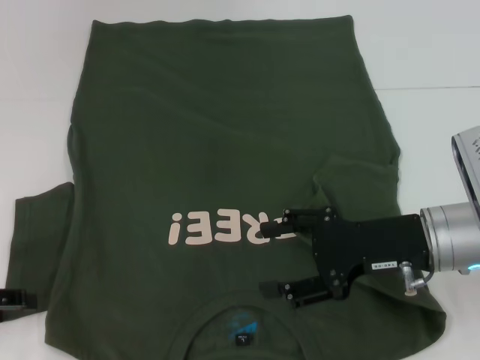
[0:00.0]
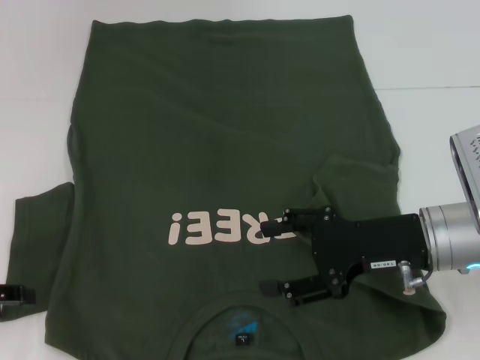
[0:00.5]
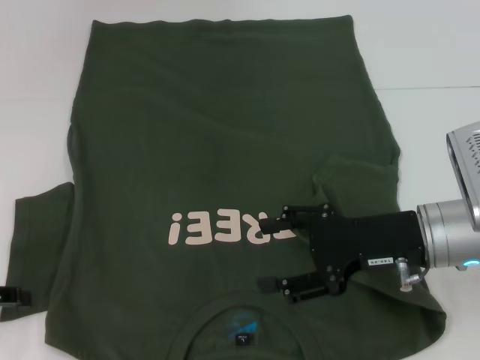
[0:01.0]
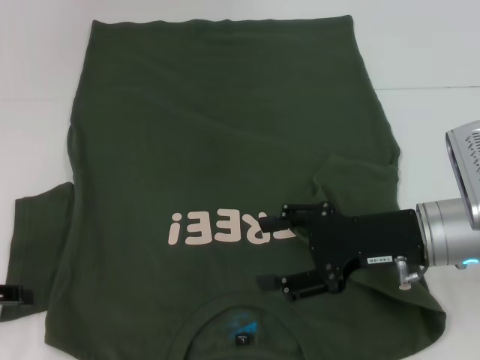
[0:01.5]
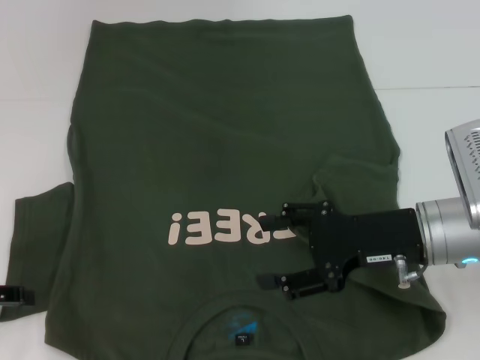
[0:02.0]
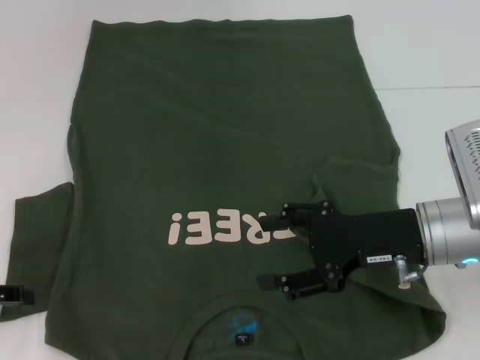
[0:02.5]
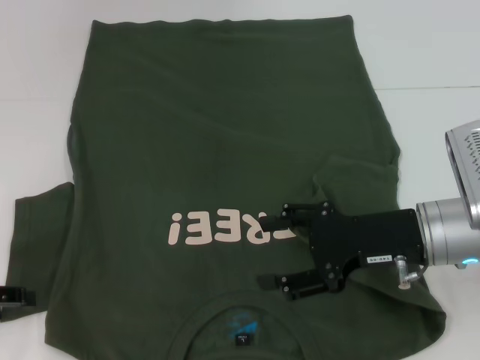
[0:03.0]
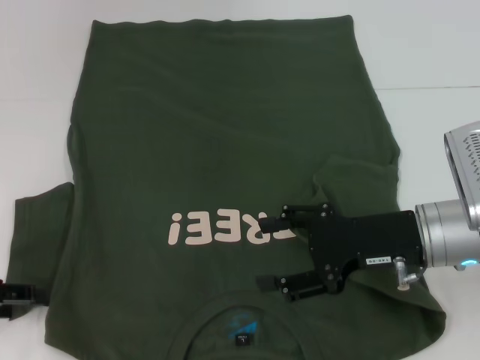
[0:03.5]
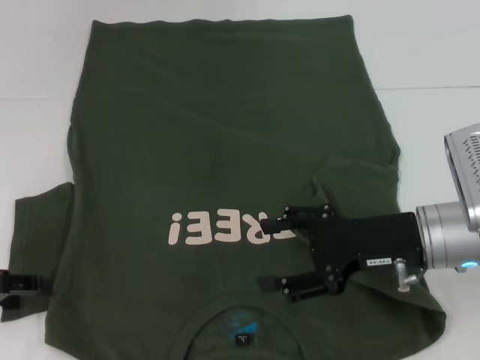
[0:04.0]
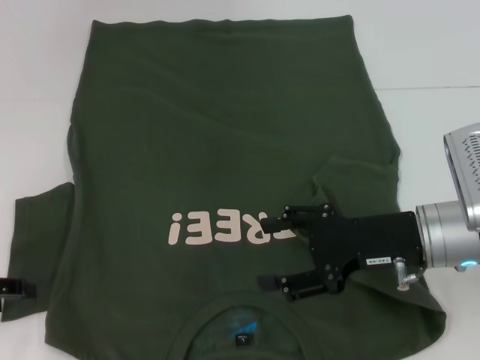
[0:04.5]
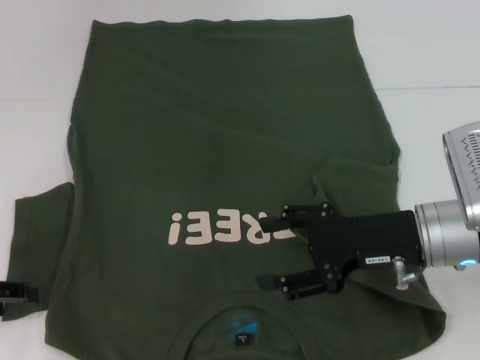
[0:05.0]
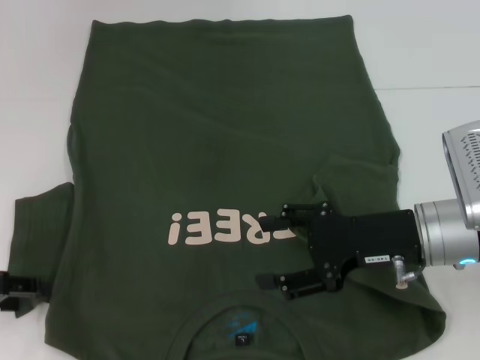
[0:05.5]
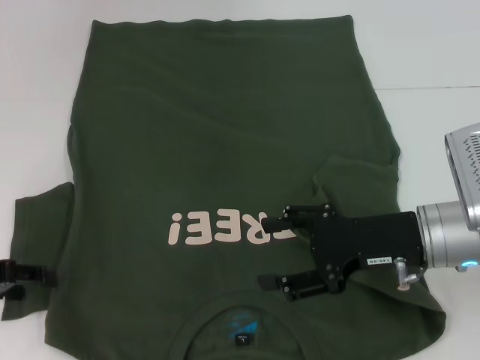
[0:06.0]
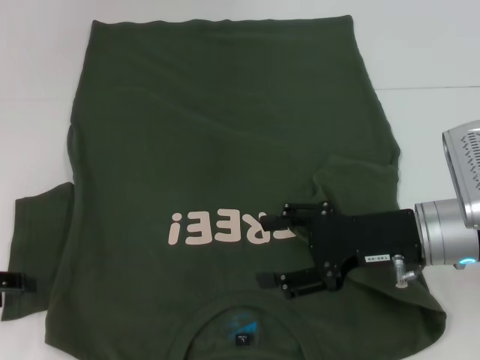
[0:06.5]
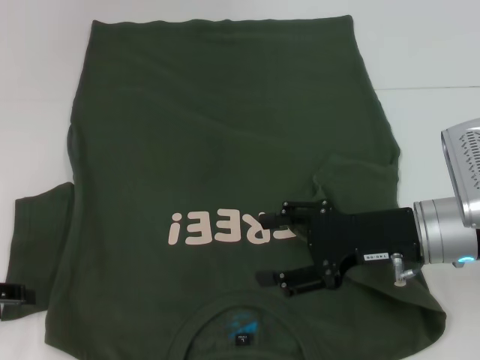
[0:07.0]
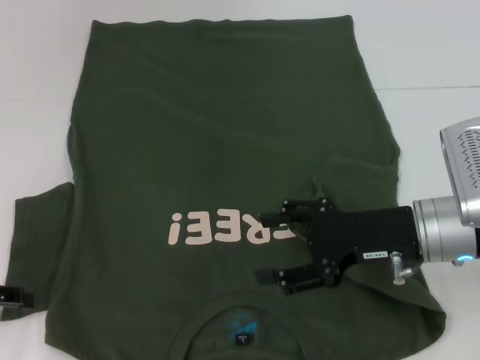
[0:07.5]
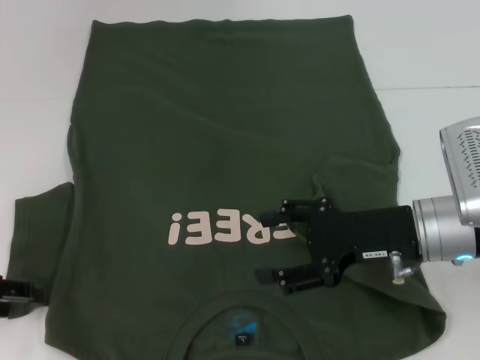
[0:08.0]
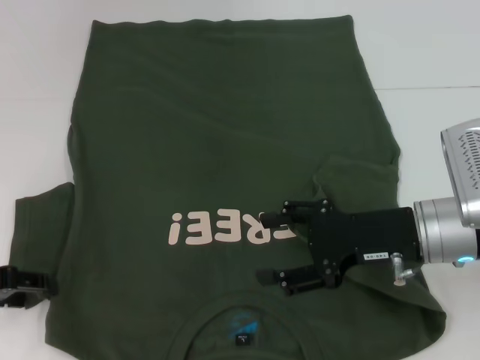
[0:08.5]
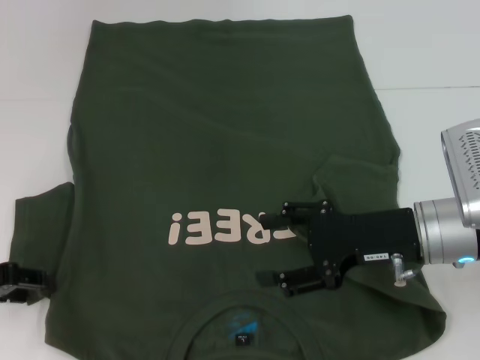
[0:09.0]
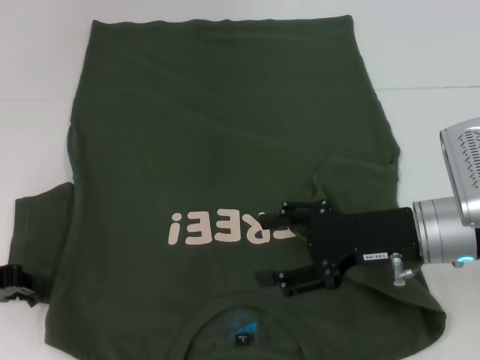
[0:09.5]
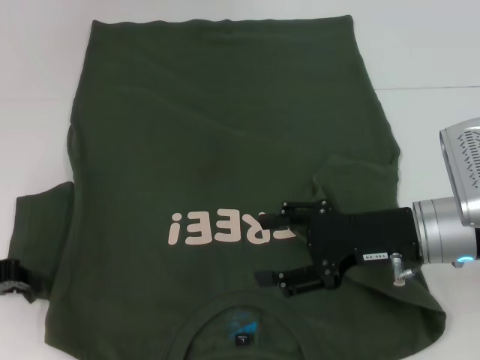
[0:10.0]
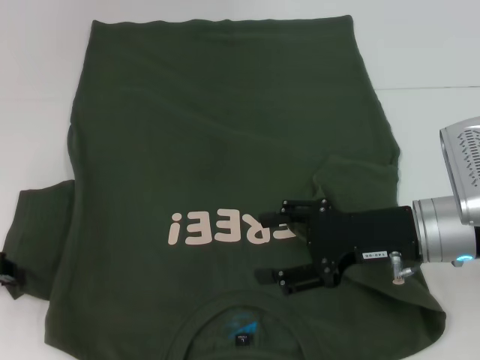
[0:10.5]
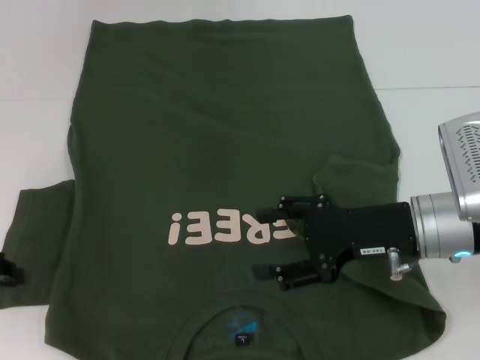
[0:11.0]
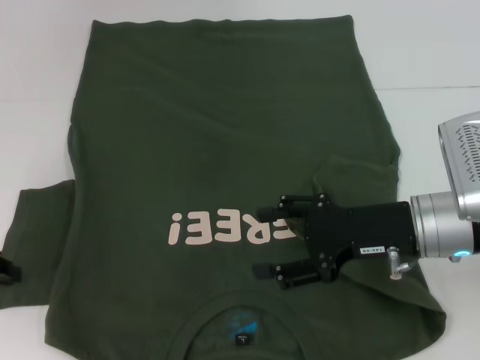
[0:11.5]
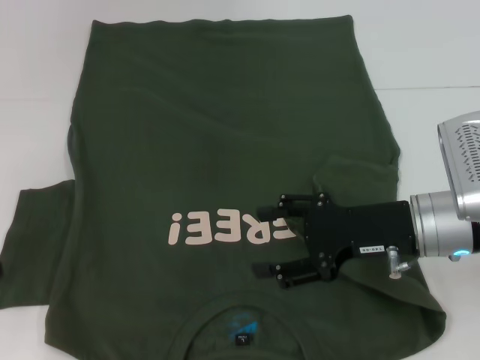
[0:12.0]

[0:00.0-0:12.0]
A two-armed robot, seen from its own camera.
0:00.0 to 0:02.0: The two grippers keep their place.
0:02.0 to 0:08.0: The grippers move only a little.
0:08.0 to 0:10.0: The left gripper closes.
0:10.0 to 0:12.0: The grippers move only a little.

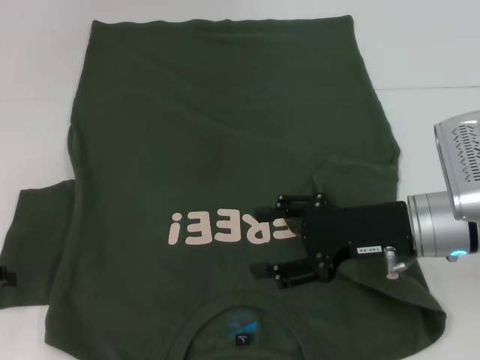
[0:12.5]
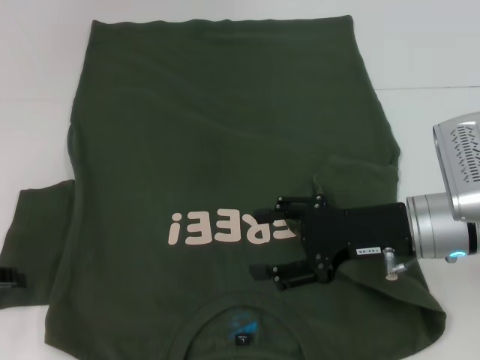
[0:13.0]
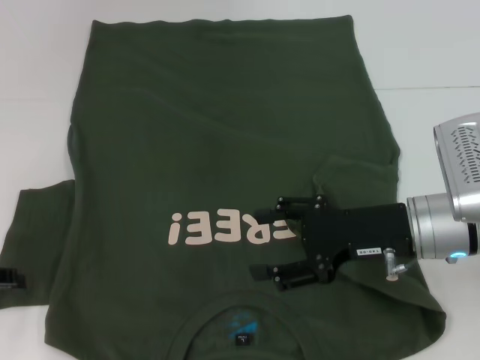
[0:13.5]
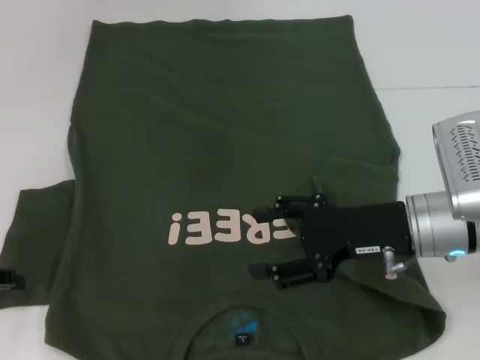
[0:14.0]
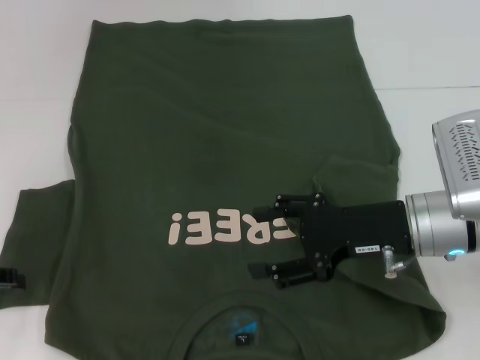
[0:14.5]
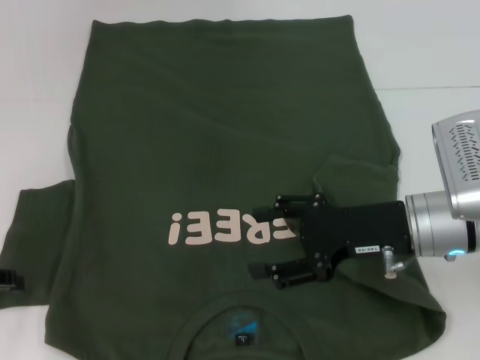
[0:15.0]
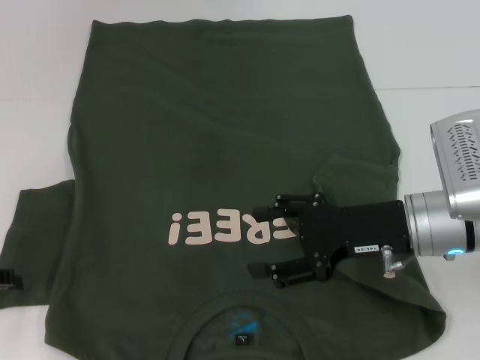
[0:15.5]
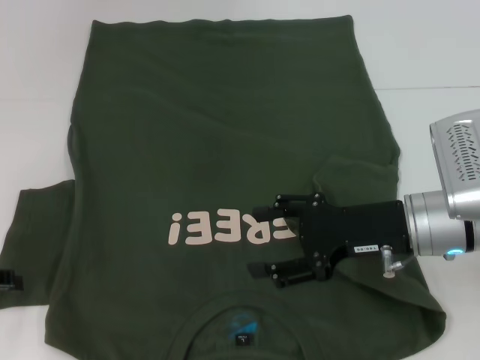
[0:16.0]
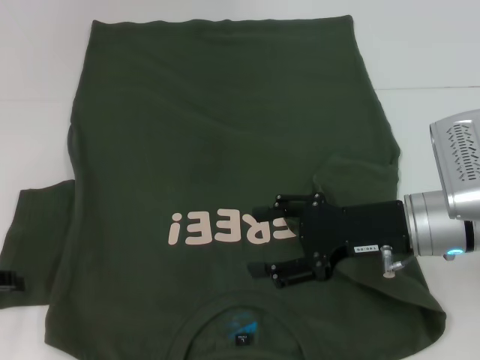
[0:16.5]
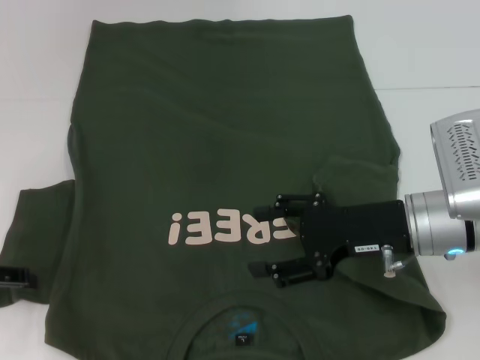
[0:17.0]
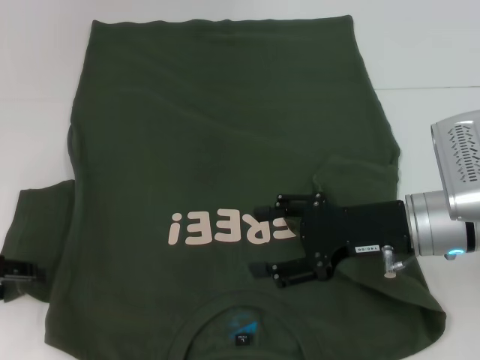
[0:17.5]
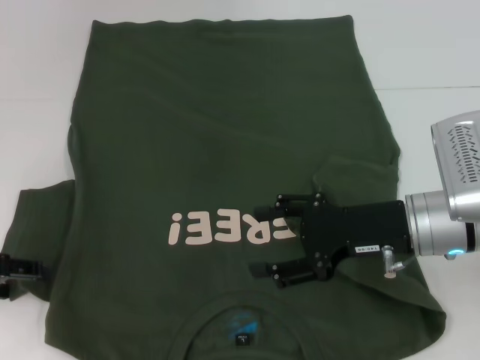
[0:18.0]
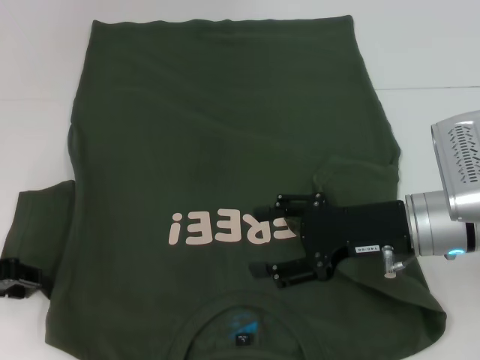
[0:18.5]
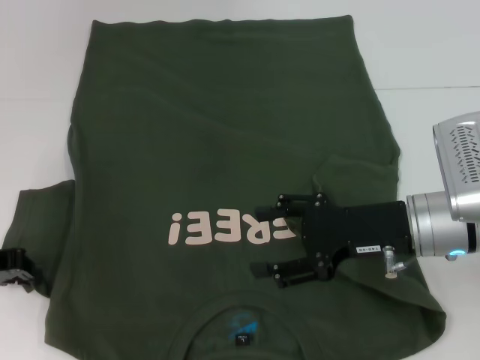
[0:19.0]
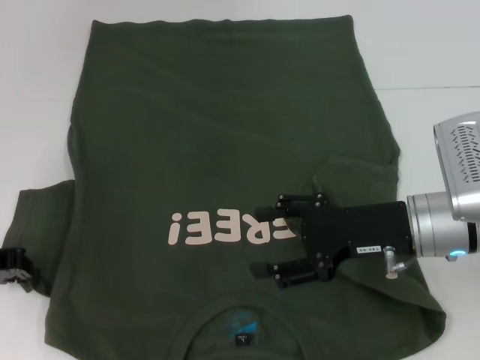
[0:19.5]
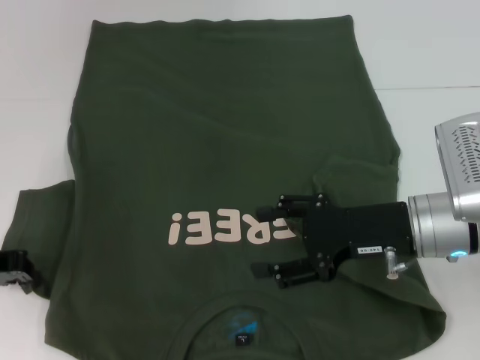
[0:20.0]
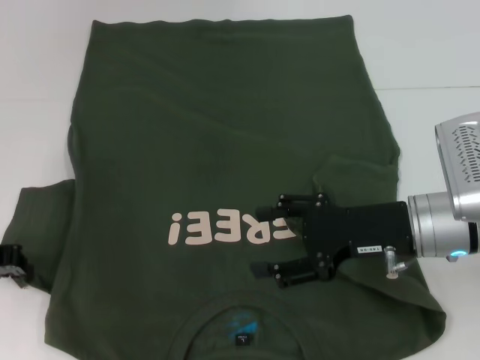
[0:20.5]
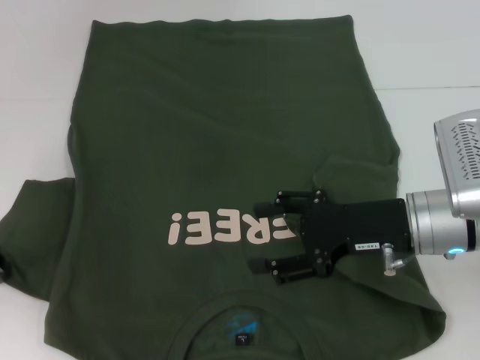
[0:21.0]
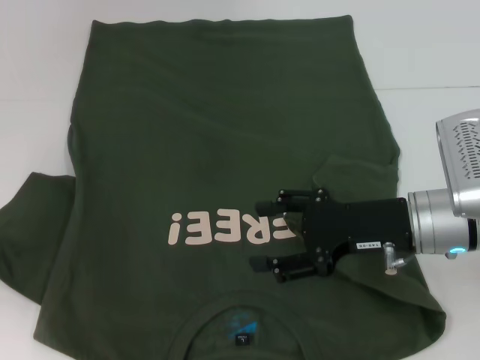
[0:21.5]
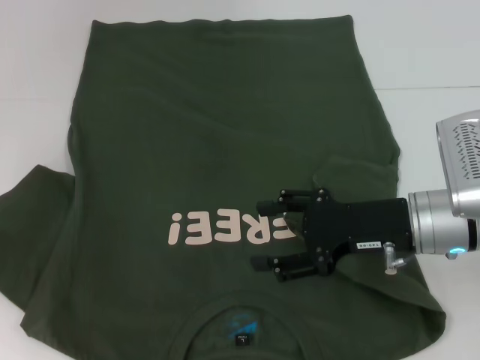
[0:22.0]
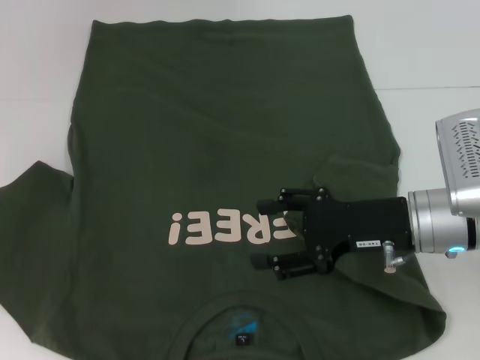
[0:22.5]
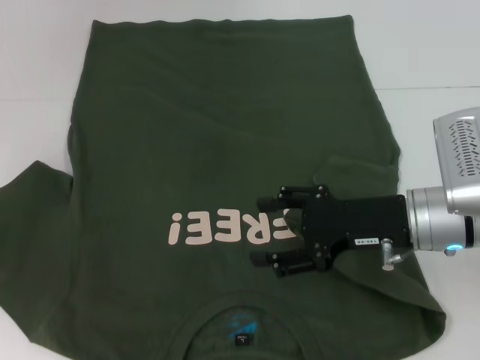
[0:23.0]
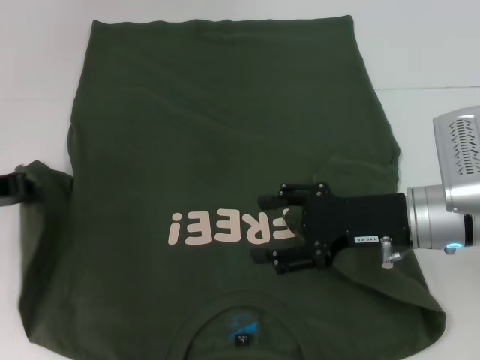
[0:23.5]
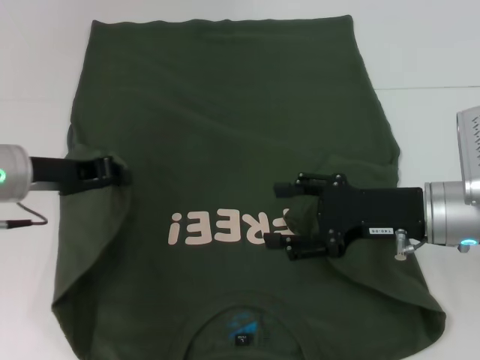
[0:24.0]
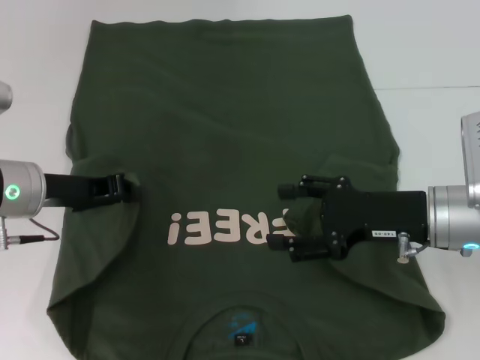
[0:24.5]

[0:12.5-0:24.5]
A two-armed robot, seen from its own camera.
0:12.5 to 0:16.5: Both grippers stay about where they are.
0:16.5 to 0:18.5: There are only small adjustments of the grippers.
0:18.5 to 0:20.5: The left gripper closes.
0:20.5 to 0:22.5: The left gripper shifts approximately 5 cm to the left.
0:22.5 to 0:24.5: The left gripper shifts about 15 cm to the right.

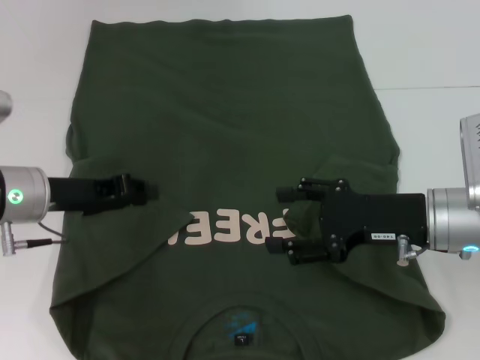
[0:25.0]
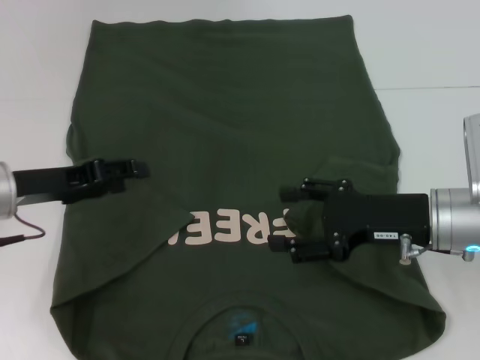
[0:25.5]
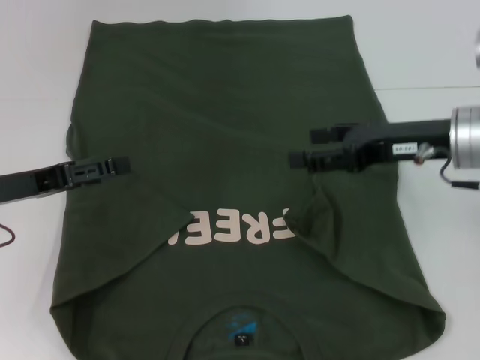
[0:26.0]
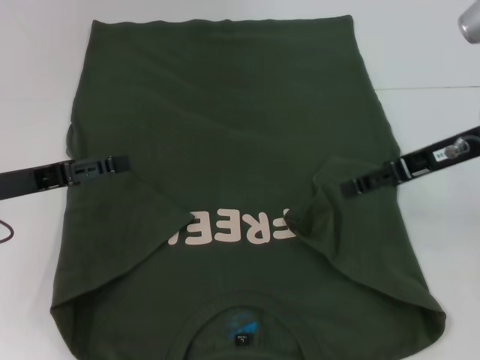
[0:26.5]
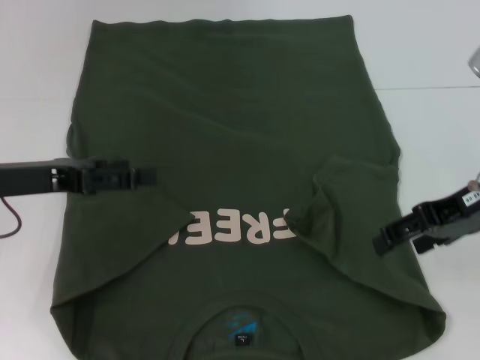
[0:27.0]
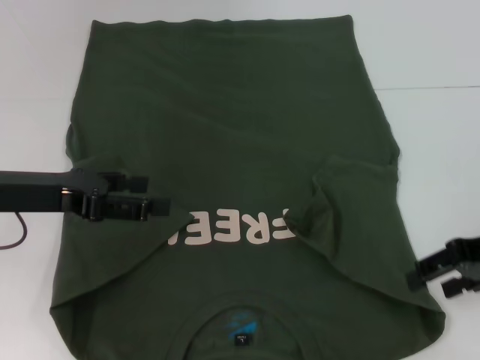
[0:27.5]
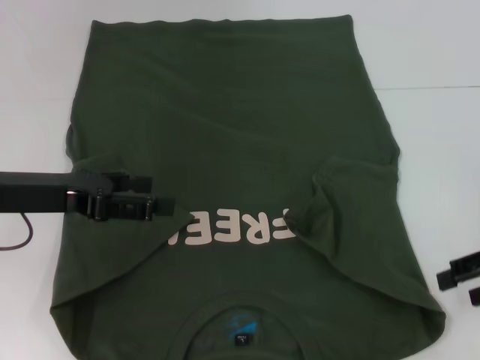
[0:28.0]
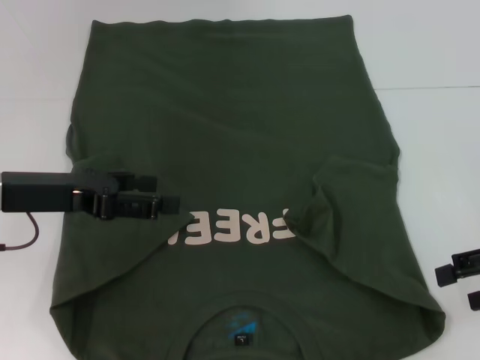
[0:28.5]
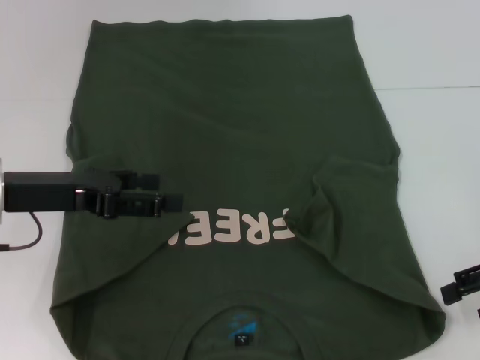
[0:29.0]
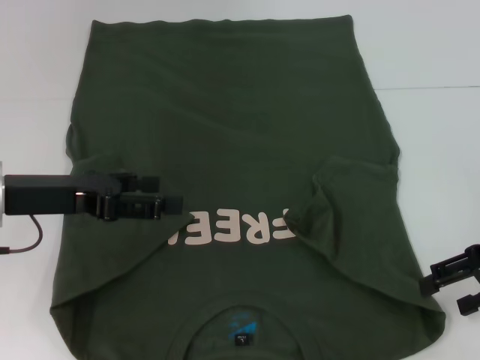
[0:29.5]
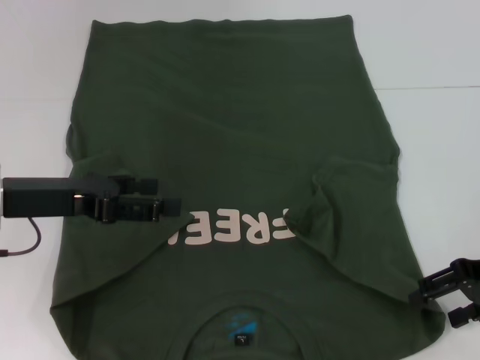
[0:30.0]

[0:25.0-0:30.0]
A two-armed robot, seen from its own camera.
0:25.0 to 0:27.5: The right gripper heads to the right and upward, covering roughly 10 cm. The left gripper shifts by roughly 5 cm, and opens up.
